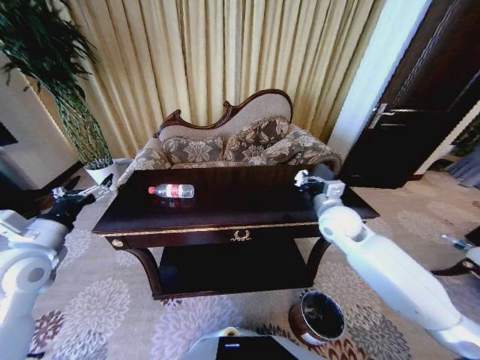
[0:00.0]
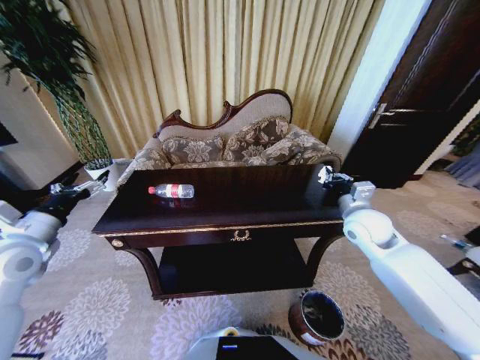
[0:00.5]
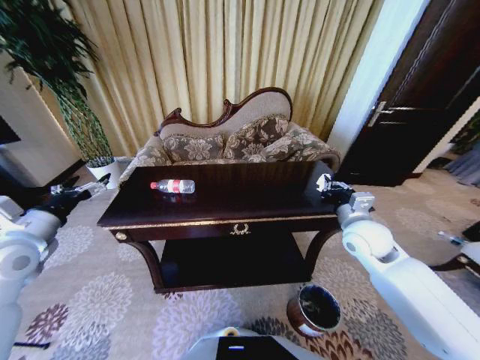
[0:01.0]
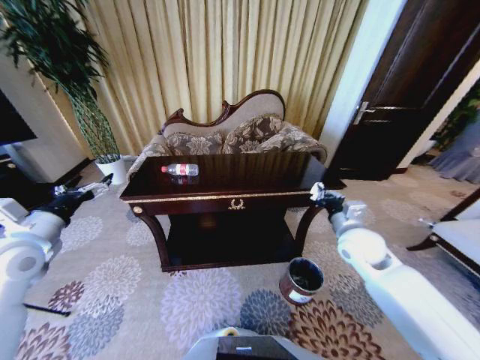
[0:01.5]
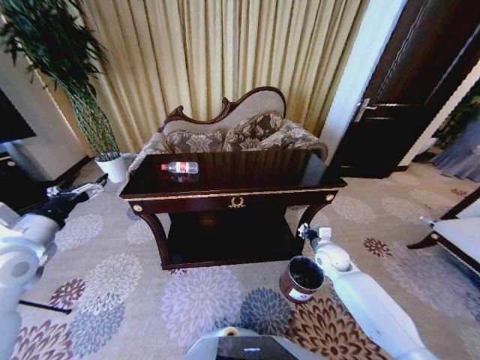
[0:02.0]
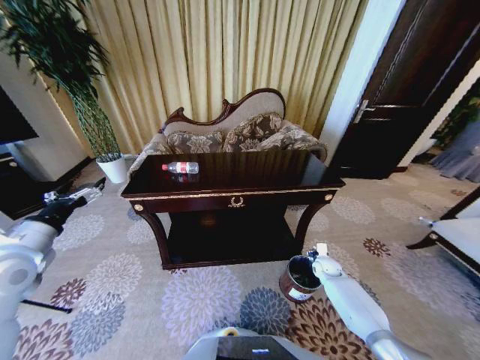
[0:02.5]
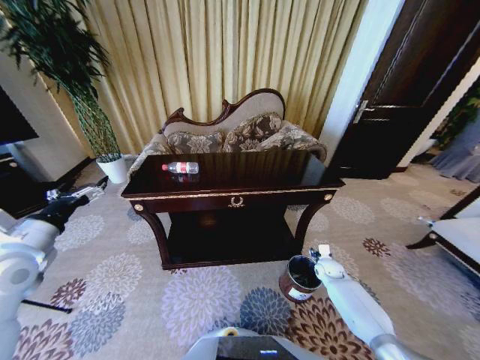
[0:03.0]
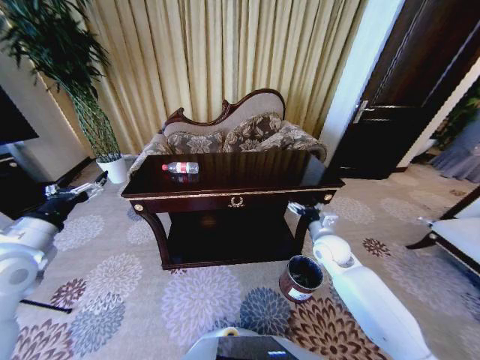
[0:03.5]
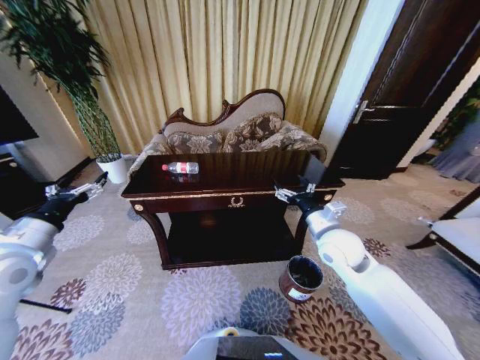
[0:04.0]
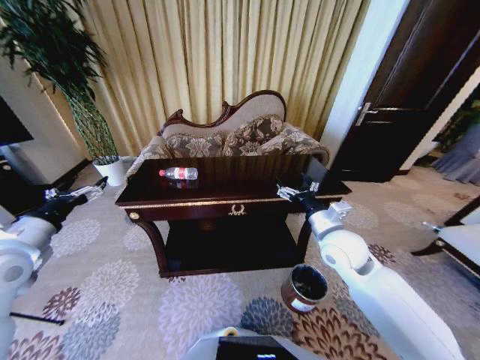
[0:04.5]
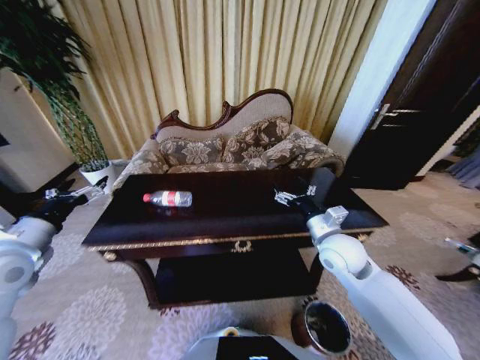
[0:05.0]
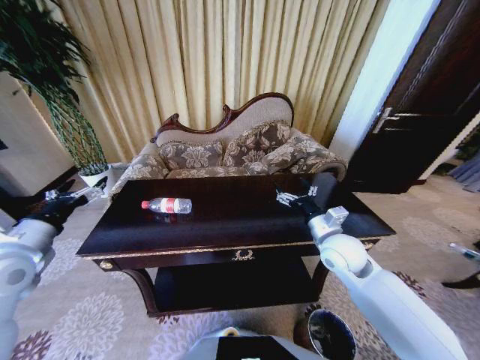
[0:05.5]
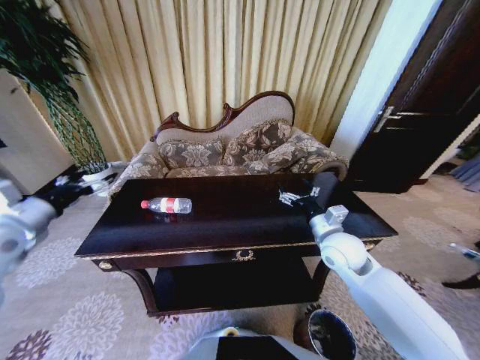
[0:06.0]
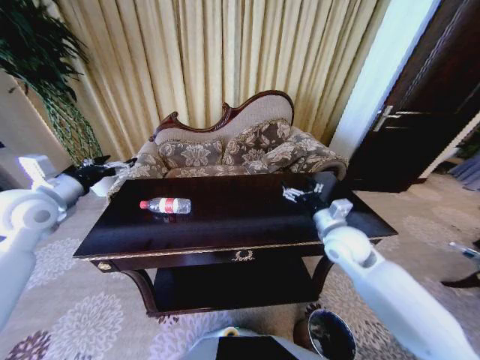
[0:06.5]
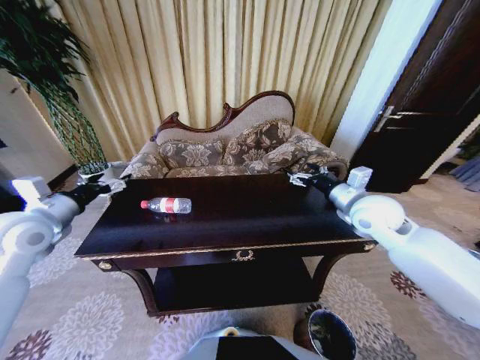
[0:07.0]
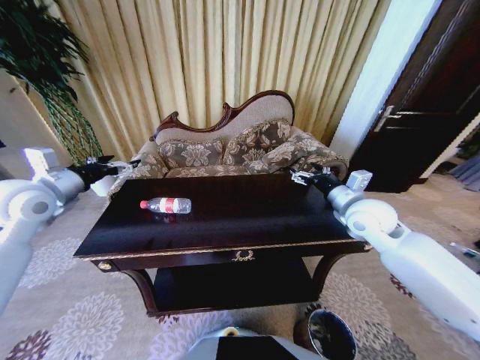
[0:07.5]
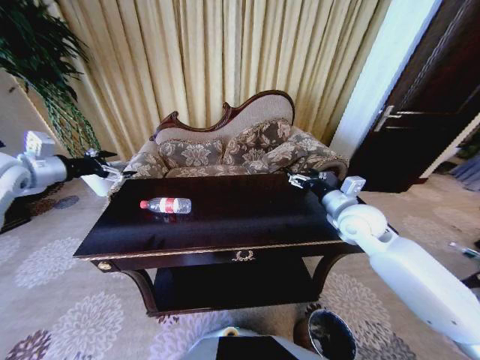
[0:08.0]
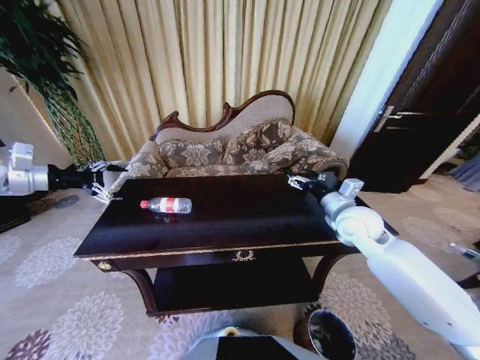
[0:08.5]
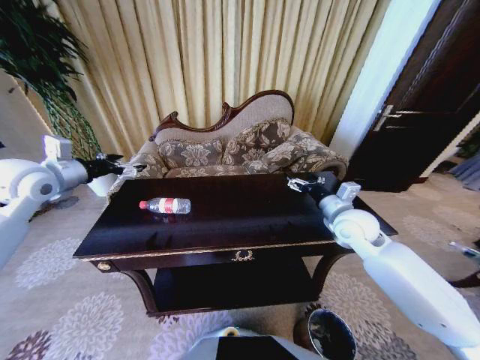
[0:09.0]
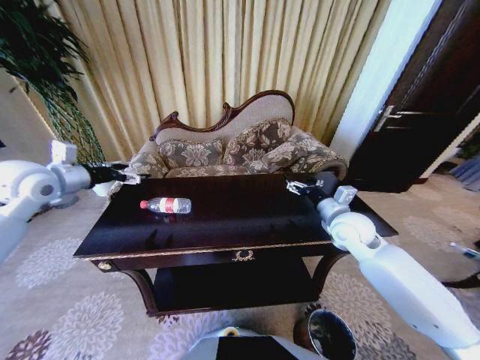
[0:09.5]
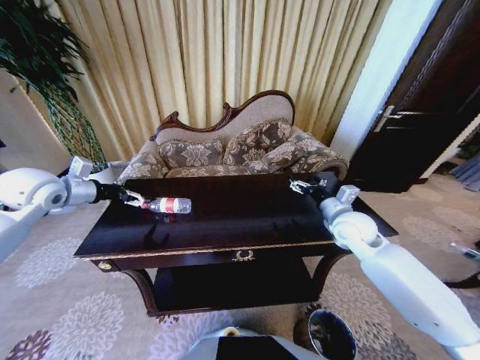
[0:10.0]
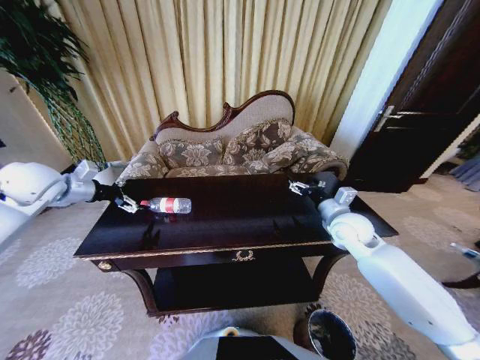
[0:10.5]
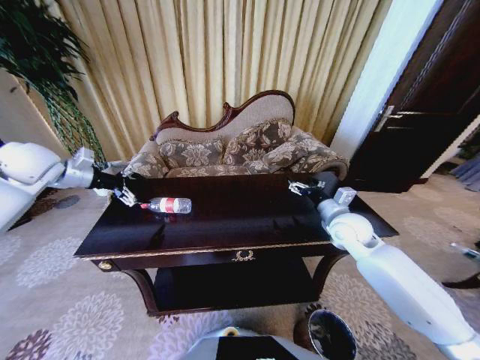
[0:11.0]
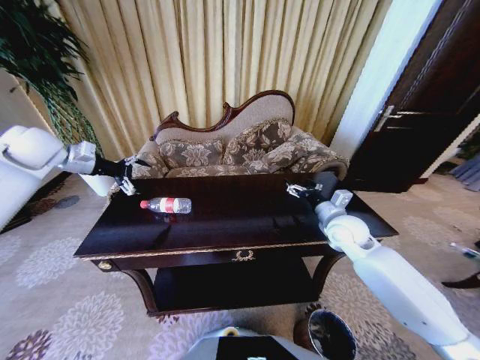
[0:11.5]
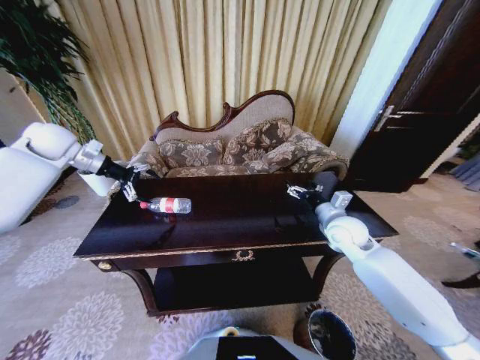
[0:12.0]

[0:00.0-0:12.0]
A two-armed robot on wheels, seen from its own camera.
Task of the whole recording: Move to the front of the table and place the trash on the table into the trash bin.
0:00.0 to 0:02.0: The right gripper is displaced downward by about 20 cm.
0:02.0 to 0:04.0: The right gripper is displaced upward and to the left by roughly 20 cm, and opens its fingers.
0:04.0 to 0:06.0: The left gripper moves approximately 5 cm.
0:06.0 to 0:08.0: The left gripper goes roughly 15 cm forward and upward; the right gripper is displaced upward by some 5 cm.
0:08.0 to 0:10.0: The left gripper heads downward, covering about 5 cm.
0:10.0 to 0:12.0: The left gripper moves forward, roughly 15 cm.

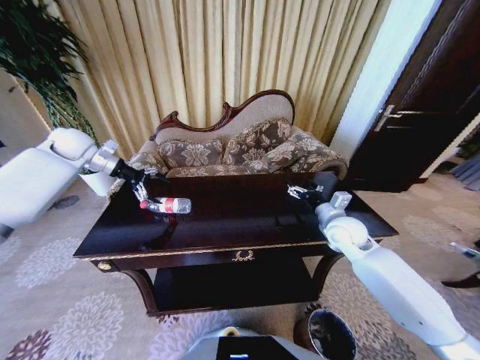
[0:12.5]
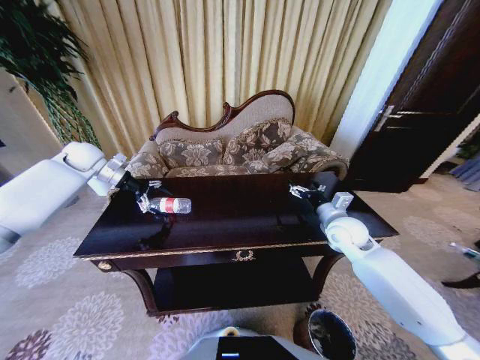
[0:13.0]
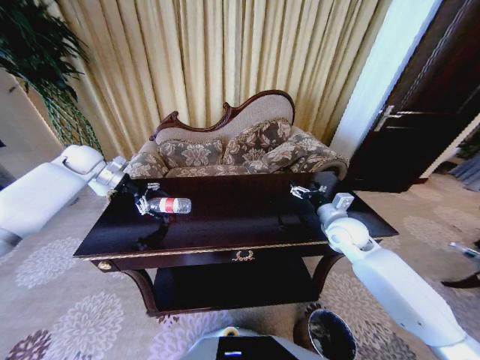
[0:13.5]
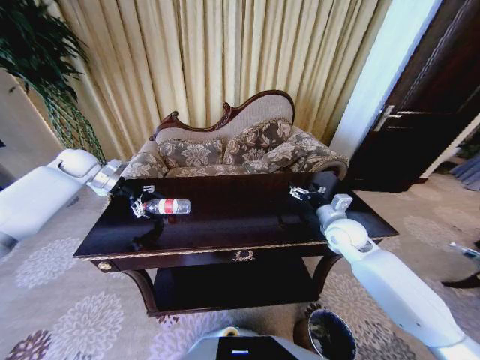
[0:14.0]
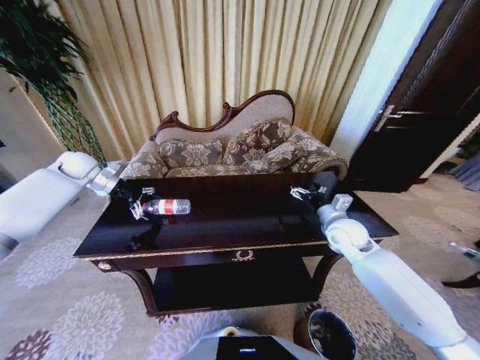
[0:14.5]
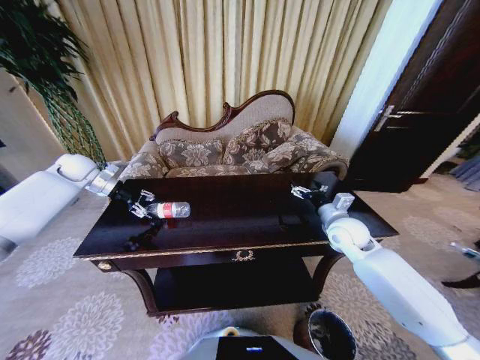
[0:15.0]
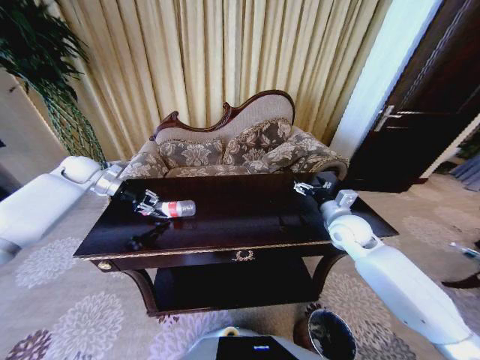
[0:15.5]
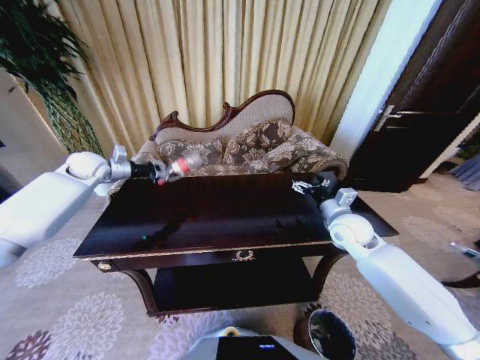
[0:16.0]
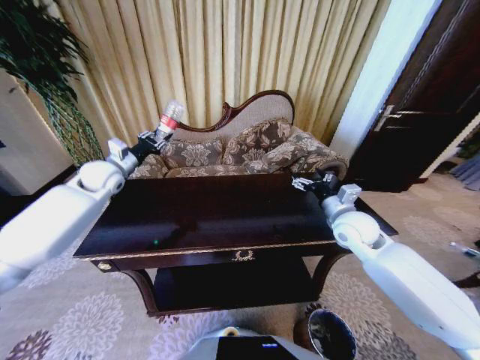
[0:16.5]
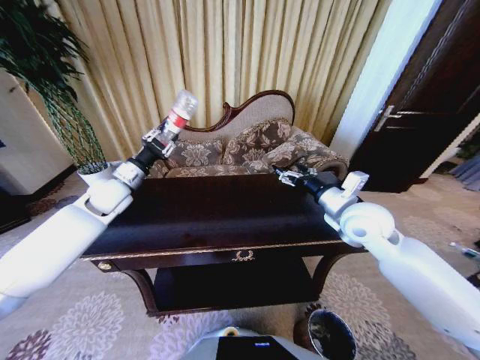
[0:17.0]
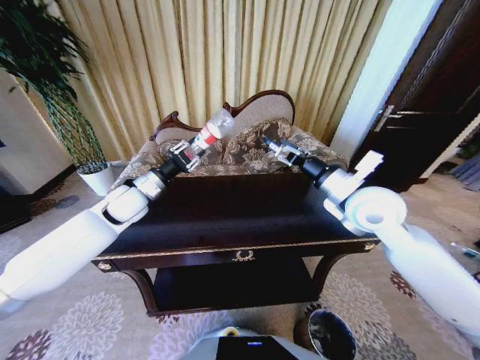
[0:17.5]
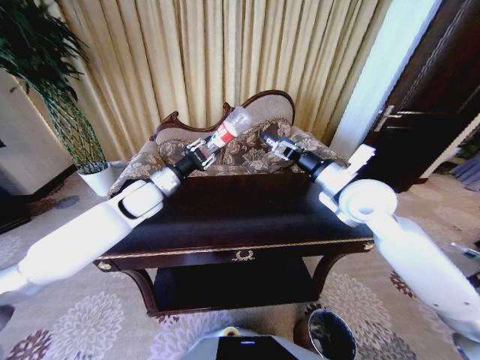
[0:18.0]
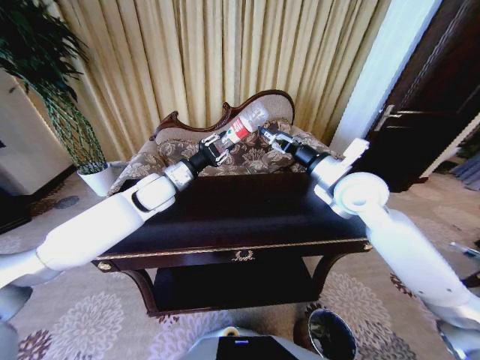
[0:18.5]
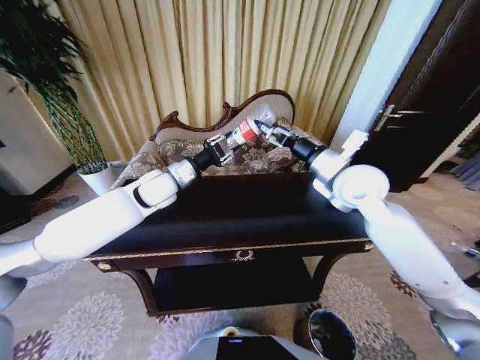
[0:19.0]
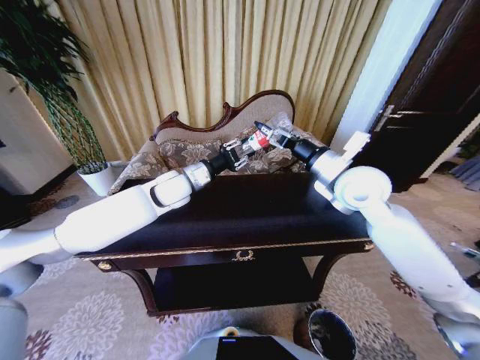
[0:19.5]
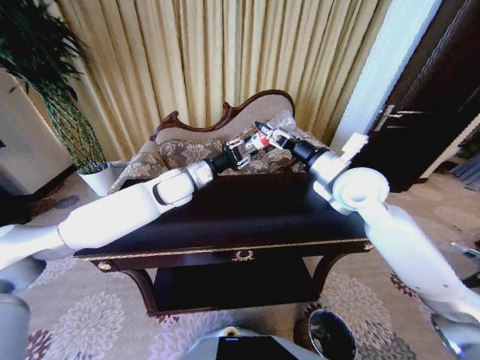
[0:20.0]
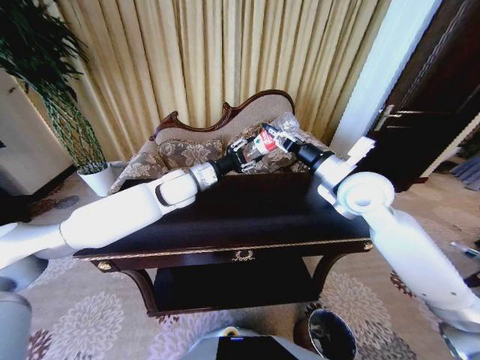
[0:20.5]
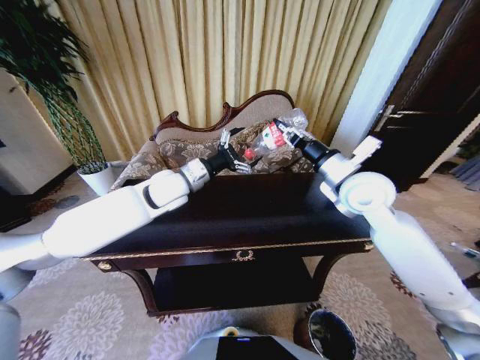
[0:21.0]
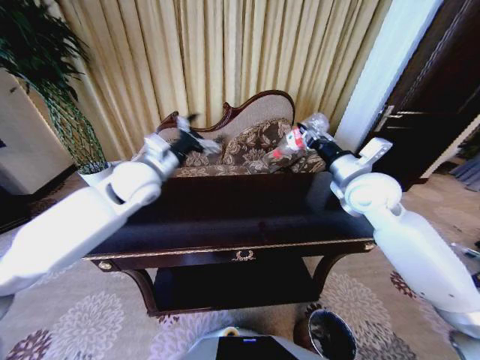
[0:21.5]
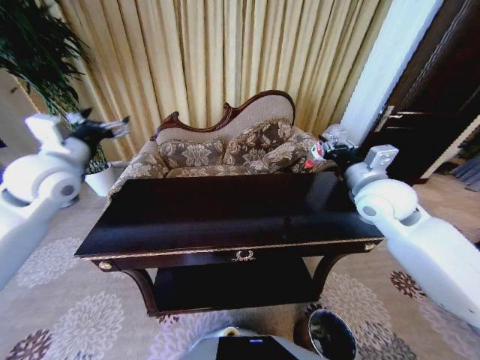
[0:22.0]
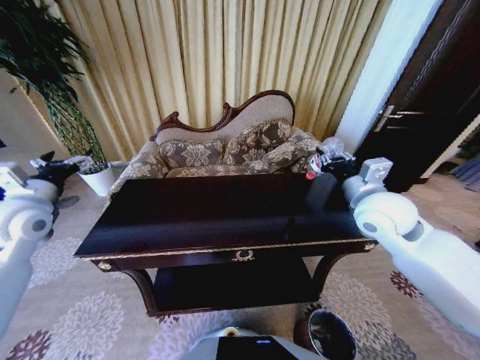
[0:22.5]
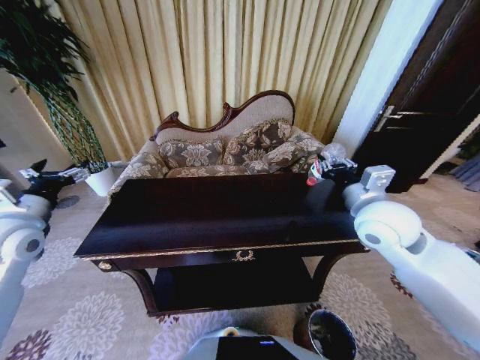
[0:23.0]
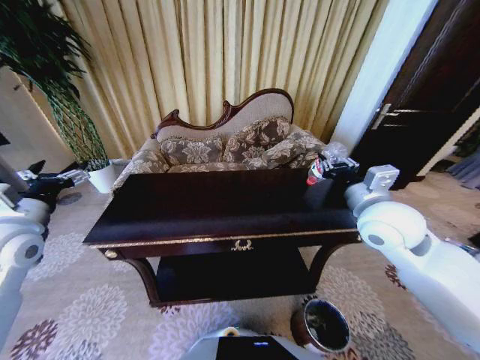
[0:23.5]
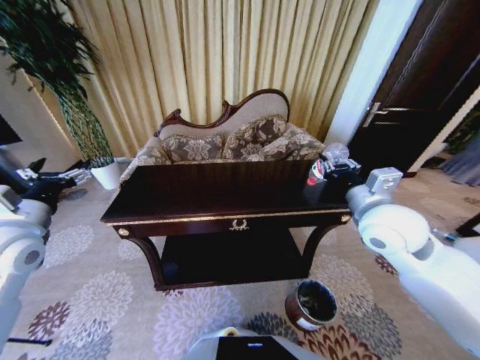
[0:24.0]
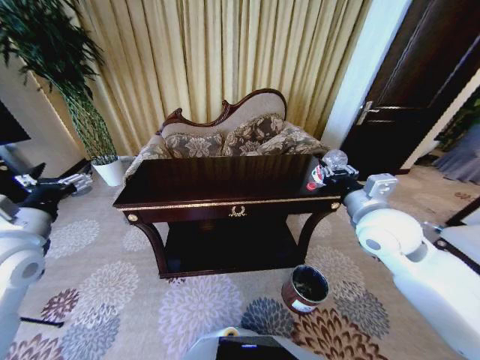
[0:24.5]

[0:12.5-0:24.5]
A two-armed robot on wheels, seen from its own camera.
Task of the whole recording: Move to the front of the table and place the trash on the table into the trash bin.
0:12.5 to 0:14.5: The left gripper is displaced downward by about 5 cm.
0:14.5 to 0:16.5: The left gripper travels to the right and backward by approximately 10 cm, and closes. The right gripper shifts by about 5 cm.
0:16.5 to 0:18.5: The left gripper is displaced to the right by about 15 cm. The right gripper travels upward by roughly 10 cm.
0:18.5 to 0:20.5: The left gripper is displaced to the right by roughly 5 cm. Meanwhile the right gripper closes up.
0:20.5 to 0:22.5: The left gripper is displaced to the left and backward by roughly 30 cm, and opens, while the right gripper shifts by some 5 cm.
0:22.5 to 0:24.5: The left gripper shifts about 10 cm backward.

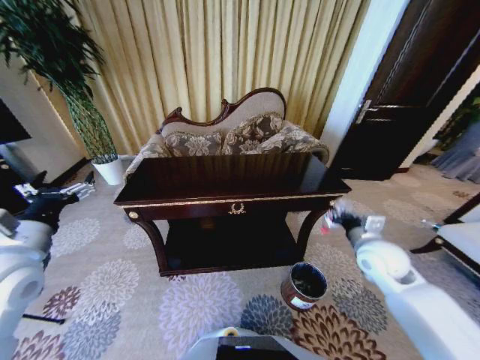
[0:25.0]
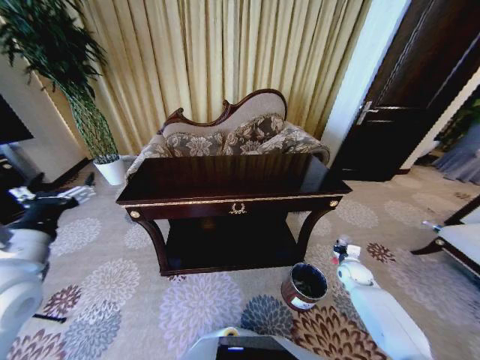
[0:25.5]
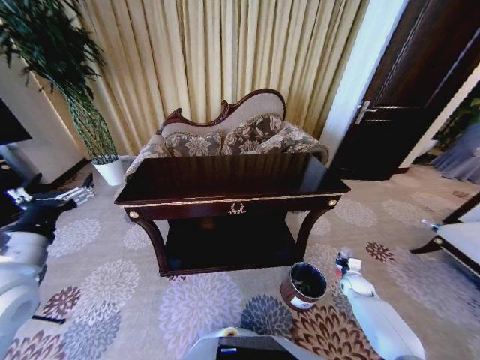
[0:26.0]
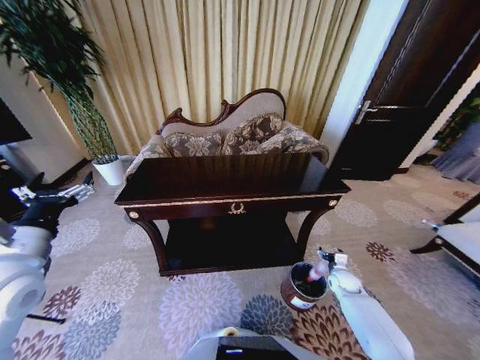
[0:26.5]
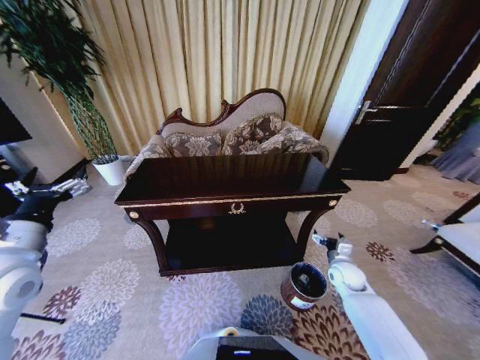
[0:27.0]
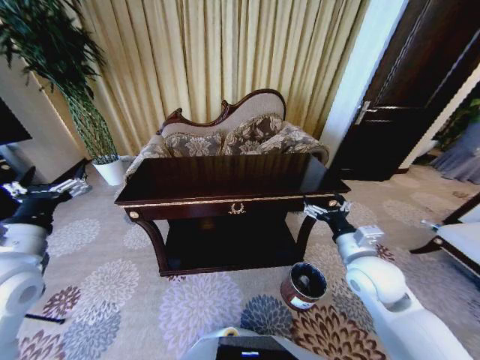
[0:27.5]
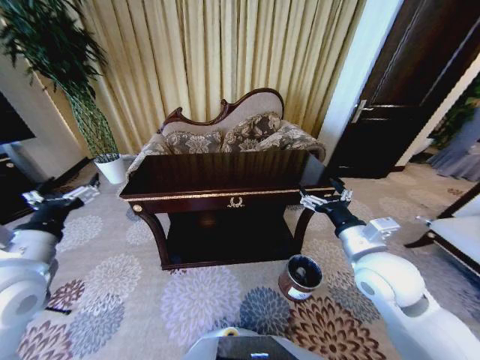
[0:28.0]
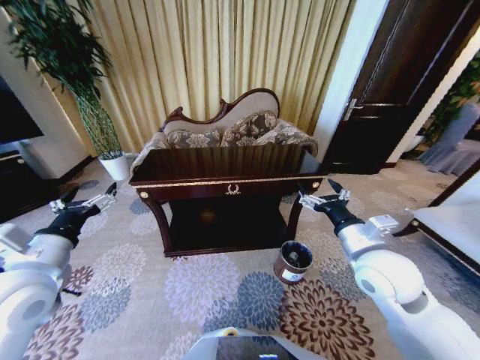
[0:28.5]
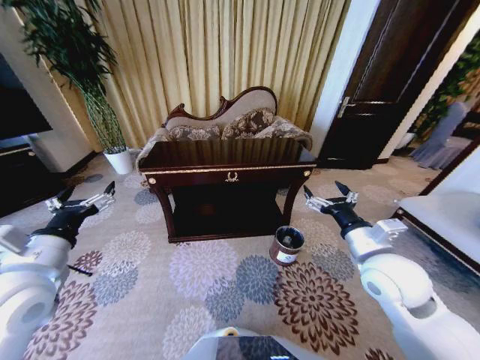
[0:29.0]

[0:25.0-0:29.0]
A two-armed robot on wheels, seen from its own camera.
Task of the whole recording: Move to the front of the table and place the trash on the table into the trash bin.
0:25.0 to 0:27.0: The right gripper is displaced downward by approximately 15 cm, and opens up.
0:27.0 to 0:29.0: The right gripper heads upward, covering some 25 cm.
